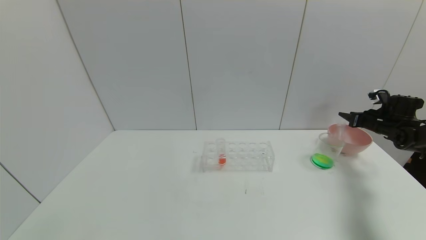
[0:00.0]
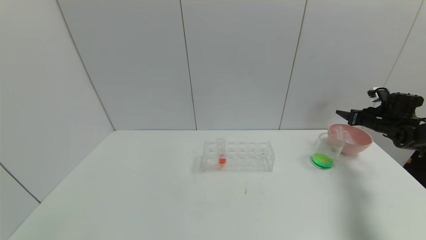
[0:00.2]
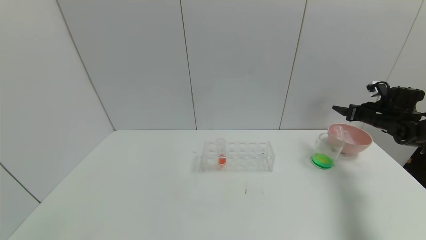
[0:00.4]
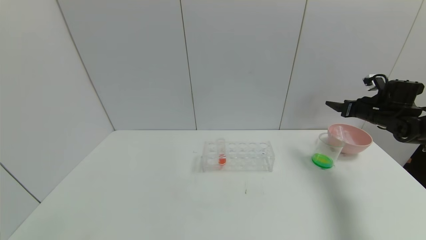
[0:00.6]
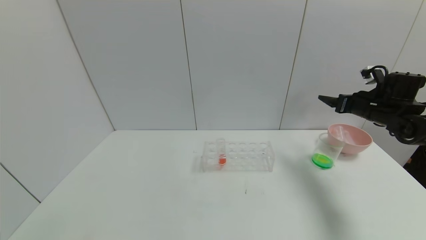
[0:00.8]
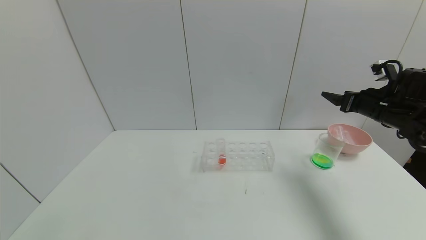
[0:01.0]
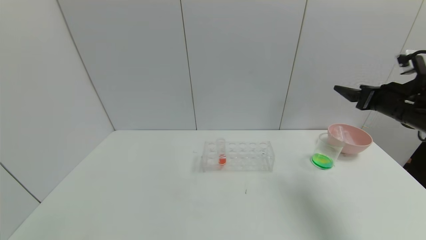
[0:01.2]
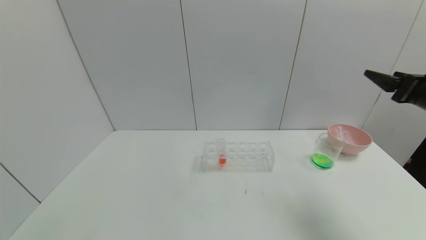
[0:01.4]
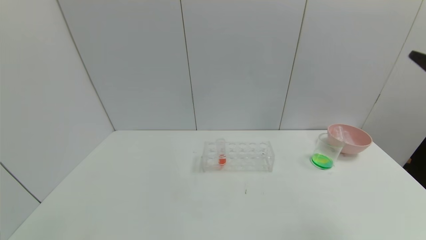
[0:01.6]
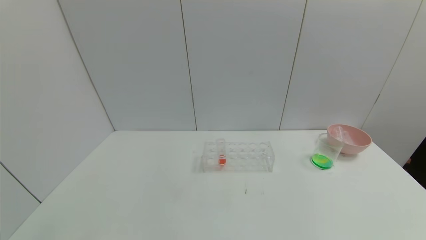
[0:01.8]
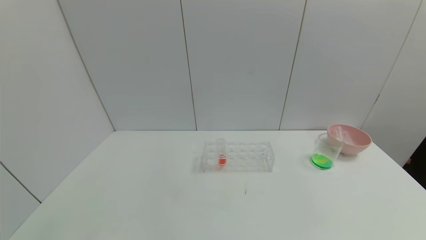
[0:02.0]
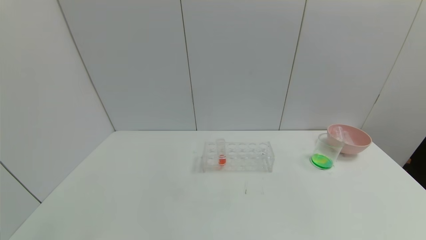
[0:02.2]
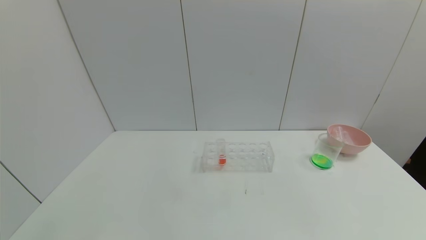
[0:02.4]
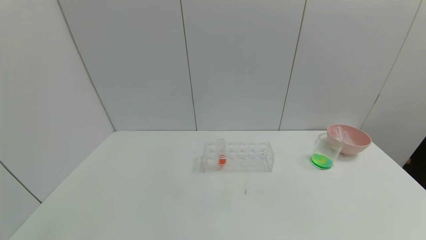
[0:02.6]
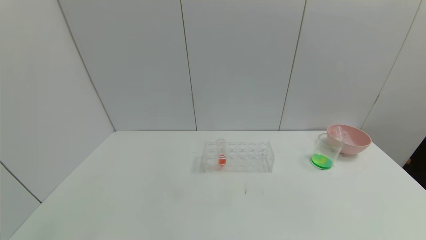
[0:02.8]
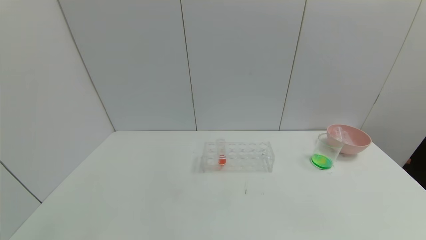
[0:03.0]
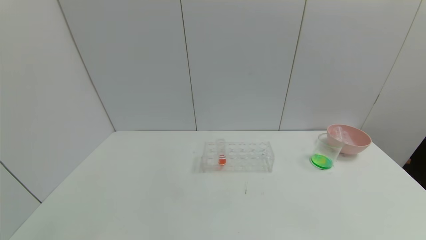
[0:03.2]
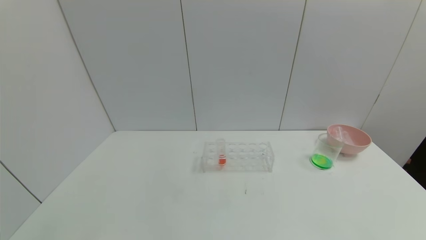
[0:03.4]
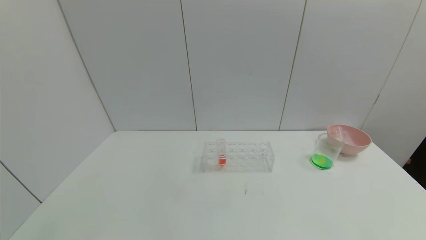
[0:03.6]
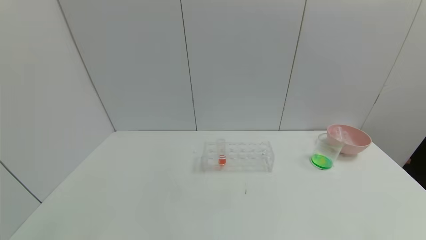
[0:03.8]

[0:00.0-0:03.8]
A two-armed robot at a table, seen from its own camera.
Task of the whole recording: pick up the test tube with yellow pigment and the test tube with blue pigment by grippers and pour them into the beaker.
0:00.0 to 0:01.2: The right gripper goes some 20 cm backward, to the left and upward, and opens up.
0:01.2 to 0:02.6: The right gripper heads backward, covering approximately 40 cm.
